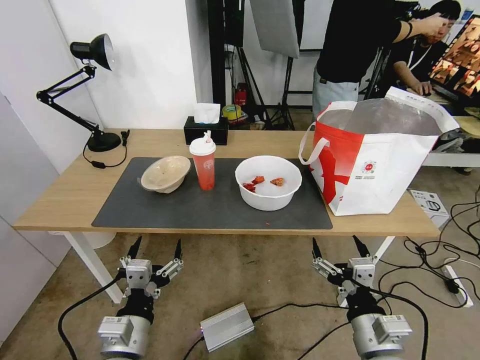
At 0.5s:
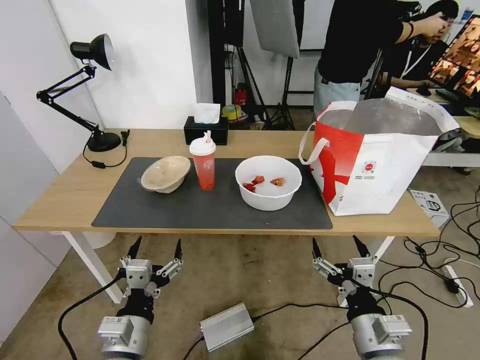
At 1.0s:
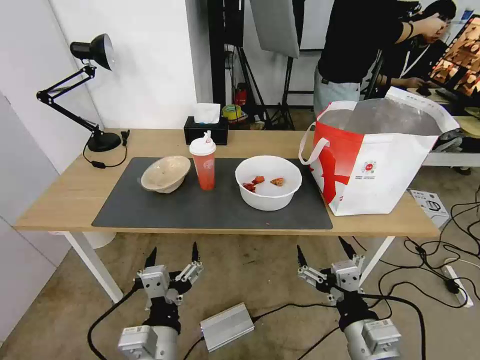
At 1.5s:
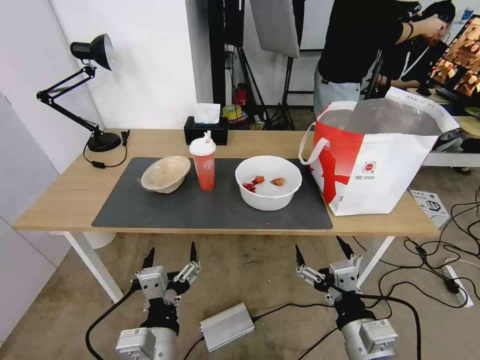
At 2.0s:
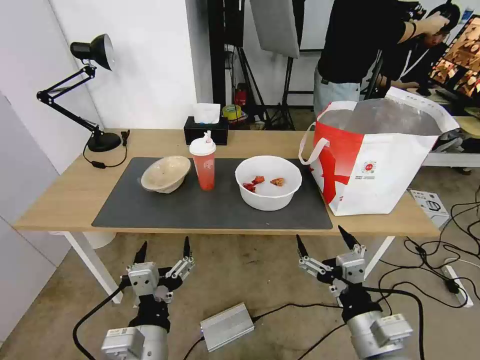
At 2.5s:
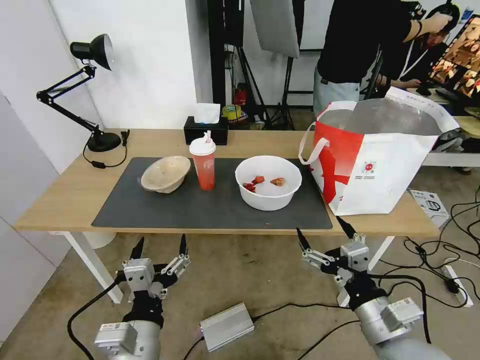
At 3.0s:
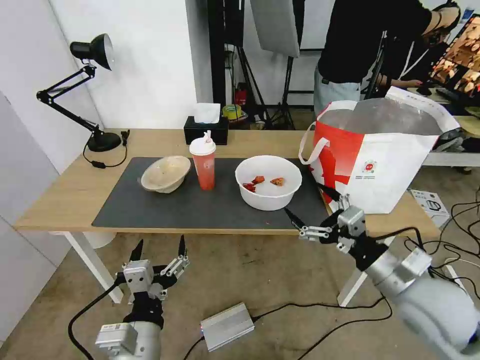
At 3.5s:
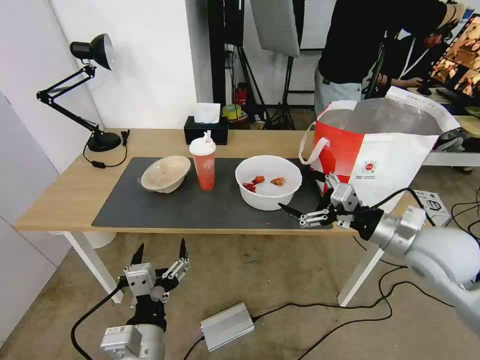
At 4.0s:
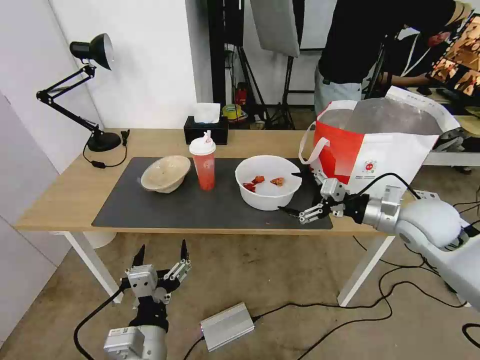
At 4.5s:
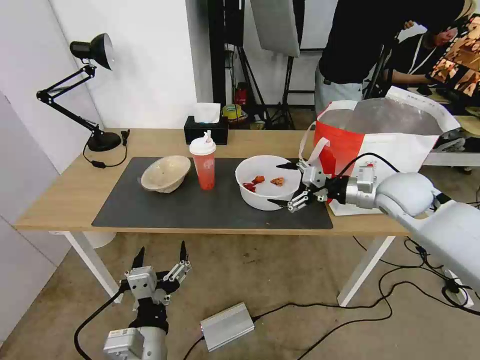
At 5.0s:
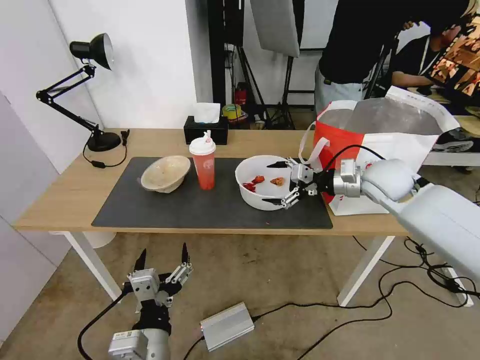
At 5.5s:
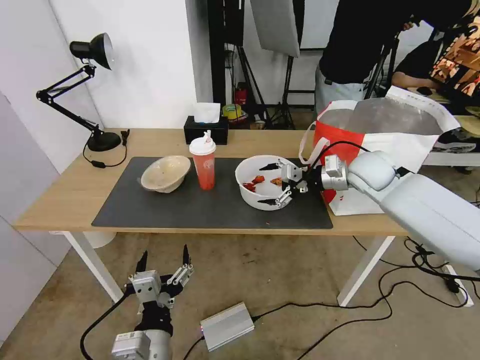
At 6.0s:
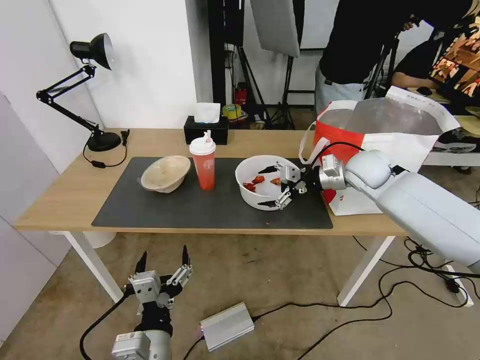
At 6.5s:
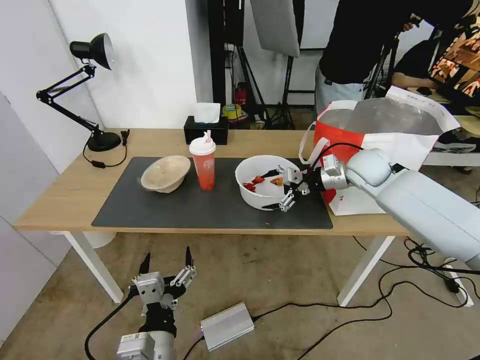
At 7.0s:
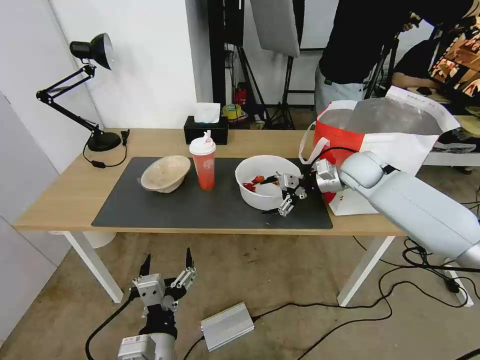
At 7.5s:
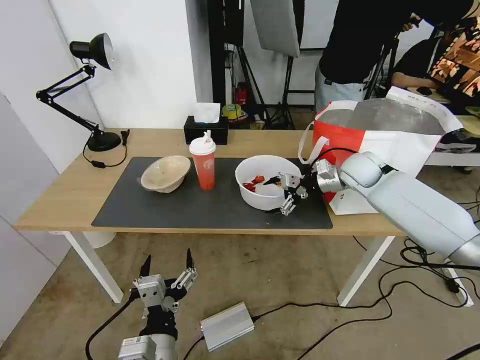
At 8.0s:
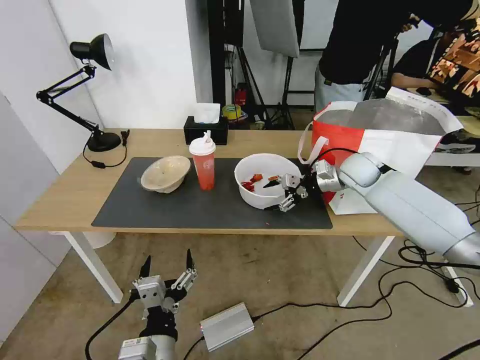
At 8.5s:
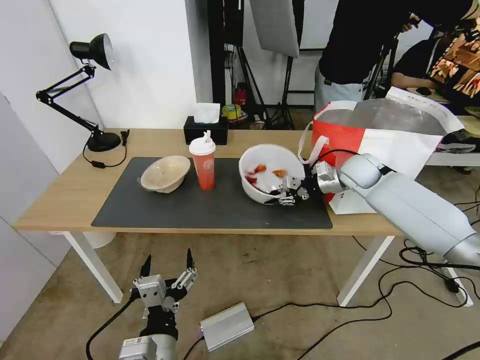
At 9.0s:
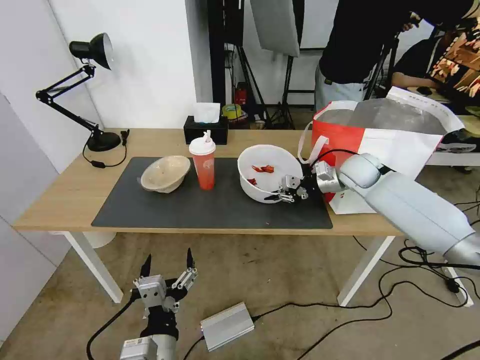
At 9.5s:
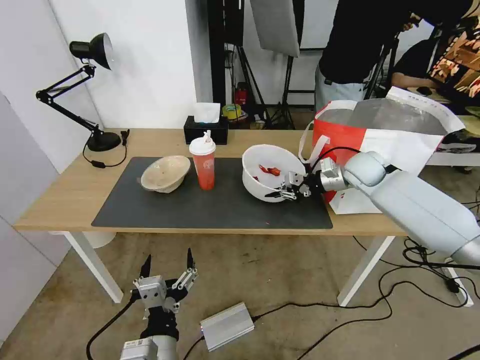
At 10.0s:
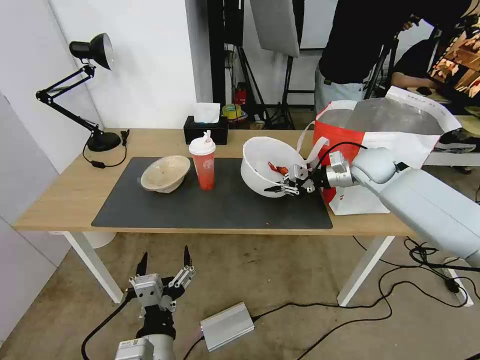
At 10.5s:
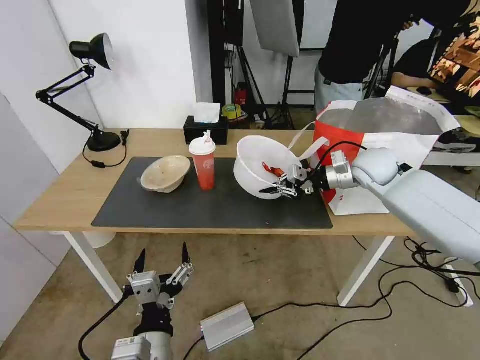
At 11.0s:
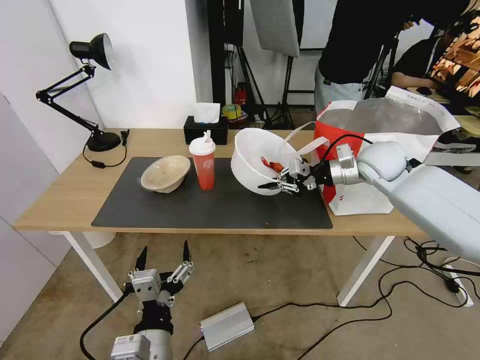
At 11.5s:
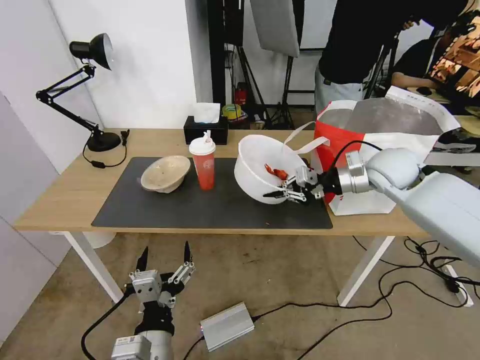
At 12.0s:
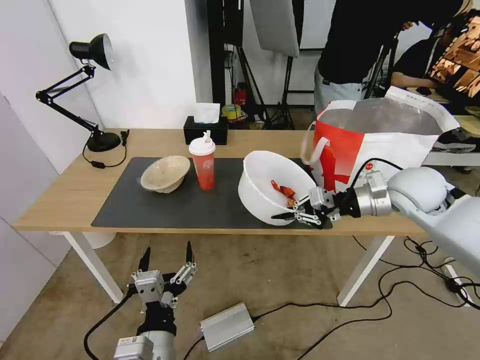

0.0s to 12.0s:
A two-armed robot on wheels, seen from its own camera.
Task of the whole recording: Pick up the trash from the table and place it into the takeout bag.
2.0s to 4.0s: The right gripper travels forward and to the right by approximately 25 cm.
4.0s to 6.0s: The right gripper heads forward, covering some 15 cm.
6.0s to 8.0s: The right gripper ends up roughly 5 cm from where it was.
8.0s to 10.0s: The right gripper closes.
10.0s to 12.0s: The right gripper travels backward by some 10 cm.

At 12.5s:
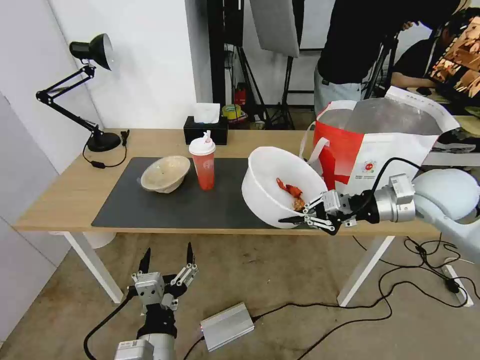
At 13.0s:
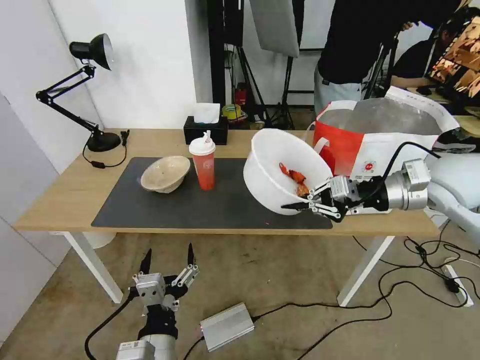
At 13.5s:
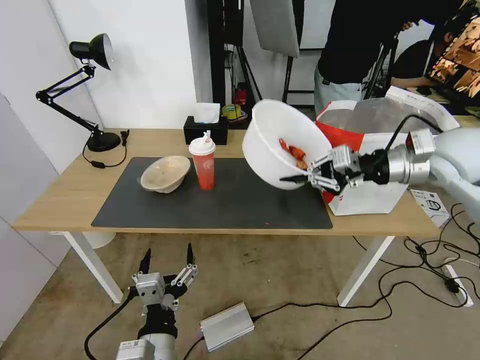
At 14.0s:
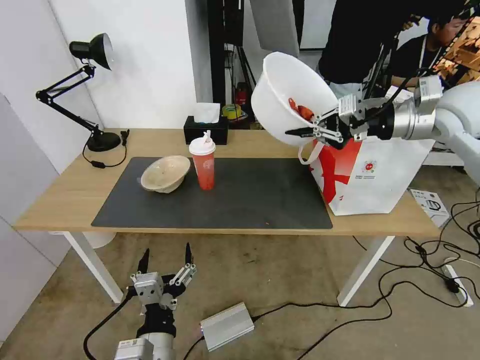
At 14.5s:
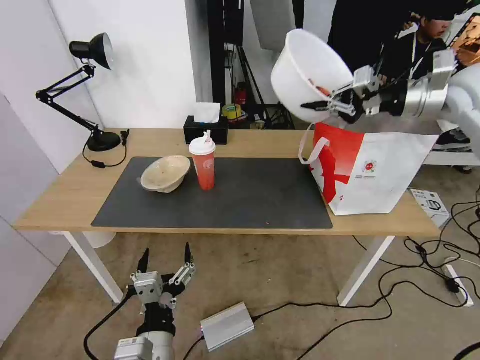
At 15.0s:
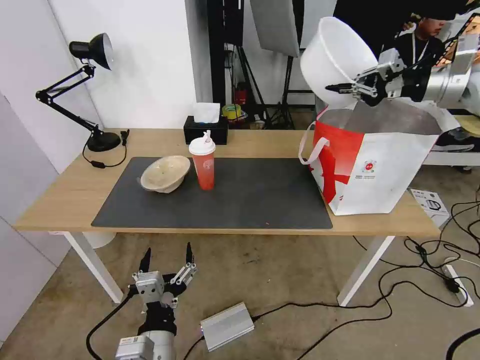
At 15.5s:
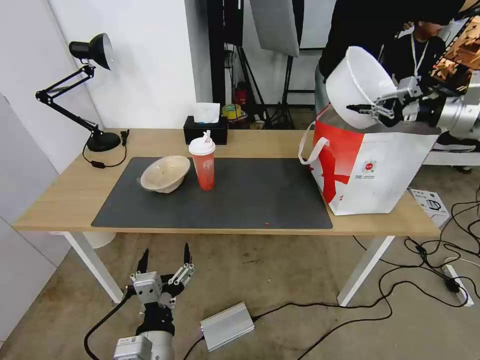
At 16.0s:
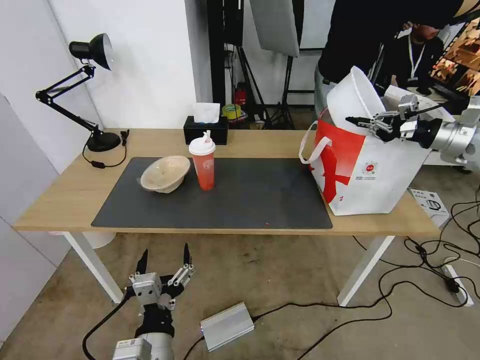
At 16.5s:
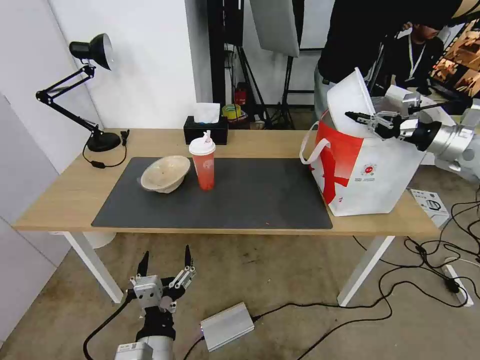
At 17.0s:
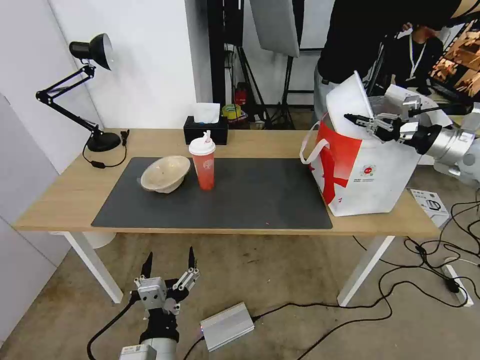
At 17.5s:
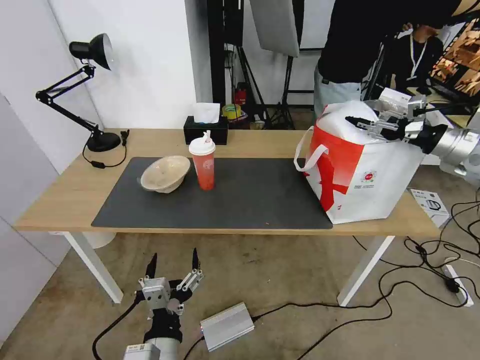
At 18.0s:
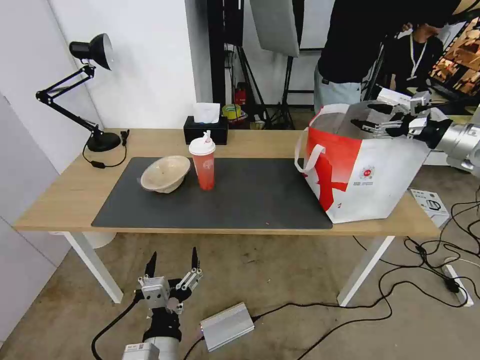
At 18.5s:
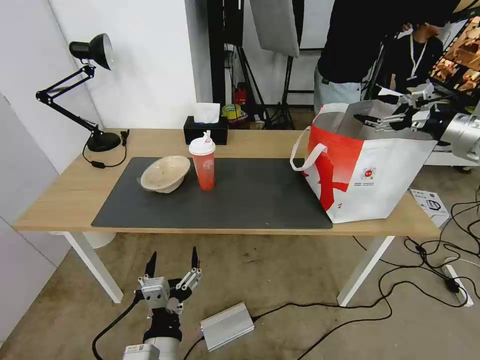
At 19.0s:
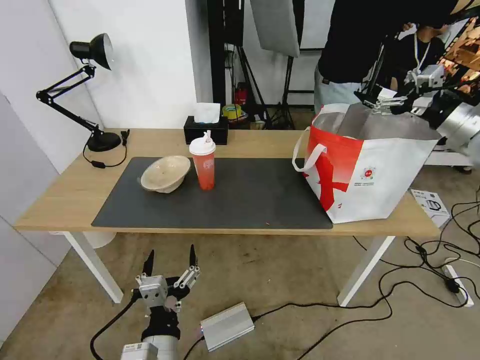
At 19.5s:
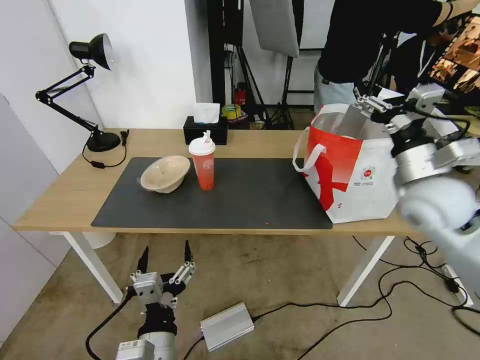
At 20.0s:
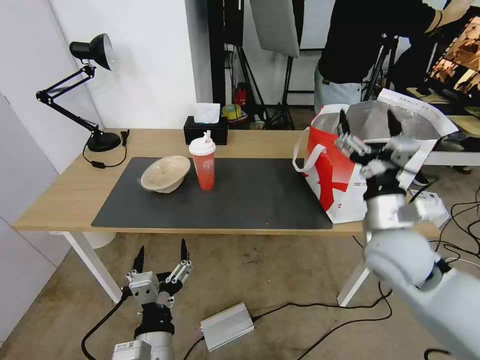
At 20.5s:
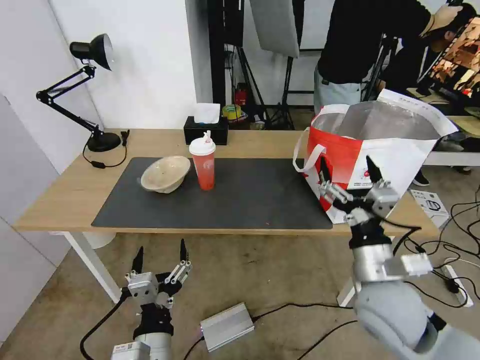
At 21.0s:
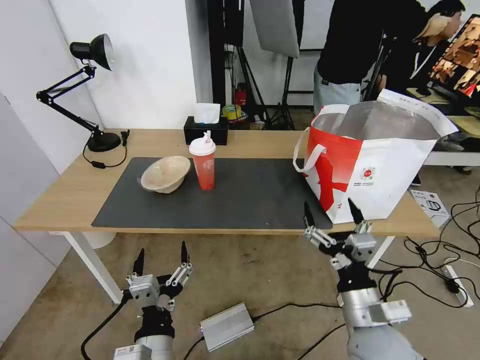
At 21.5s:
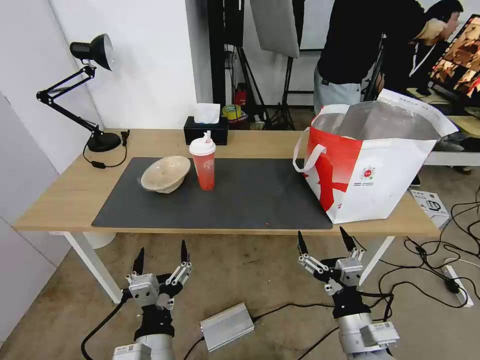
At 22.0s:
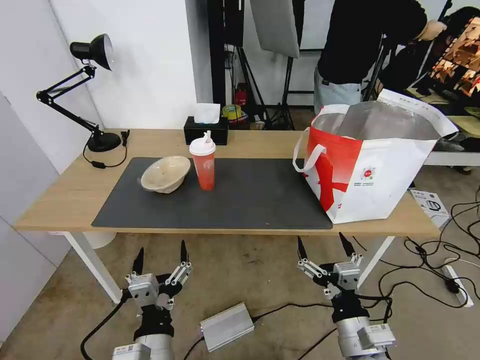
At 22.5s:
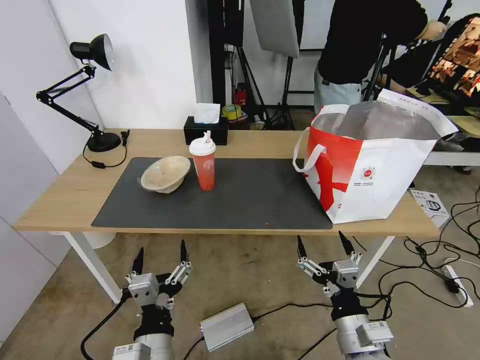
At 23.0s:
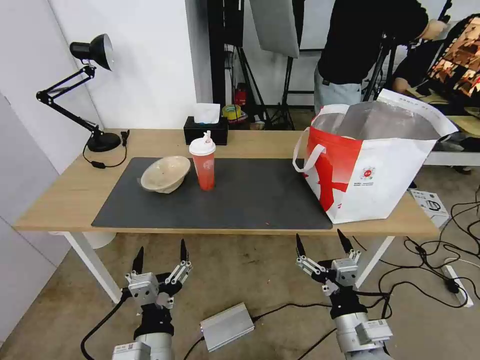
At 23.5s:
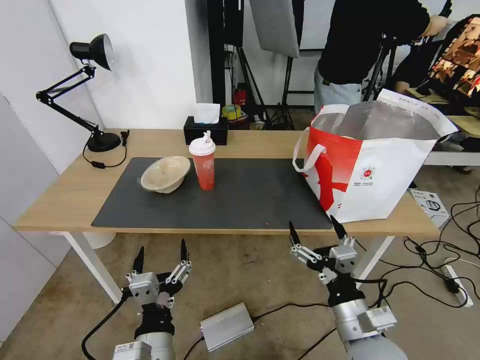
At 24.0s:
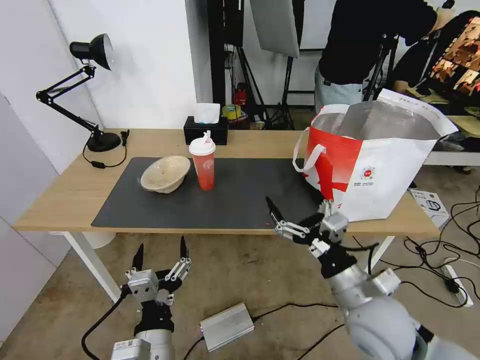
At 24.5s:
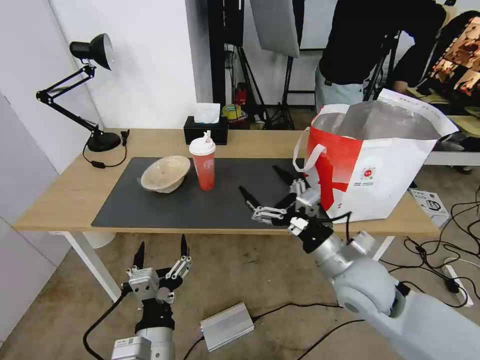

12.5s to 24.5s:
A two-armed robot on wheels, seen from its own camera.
Task of the whole recording: Pick up the trash from the table and place it into the takeout bag.
12.5s to 14.5s: The right gripper travels upward and forward by approximately 20 cm.
14.5s to 16.5s: The right gripper travels downward and to the right by roughly 15 cm.
16.5s to 18.5s: The right gripper opens up.
18.5s to 20.5s: The right gripper goes approximately 40 cm to the left, backward and downward.
20.5s to 22.5s: The right gripper is displaced downward and backward by roughly 15 cm.
22.5s to 24.5s: The right gripper travels forward and upward by approximately 15 cm.

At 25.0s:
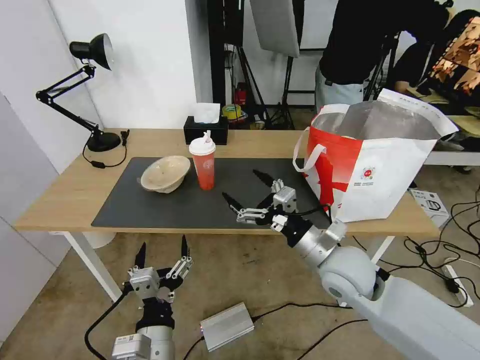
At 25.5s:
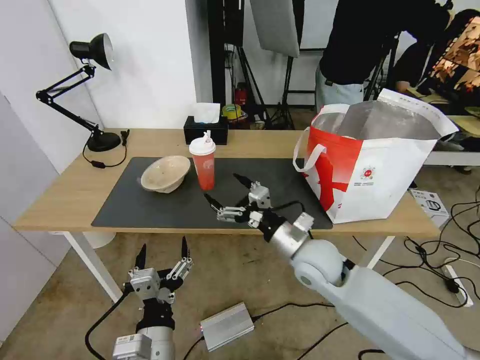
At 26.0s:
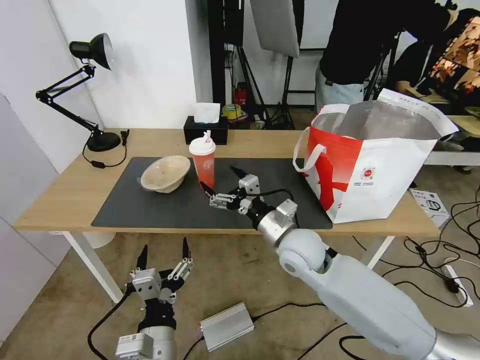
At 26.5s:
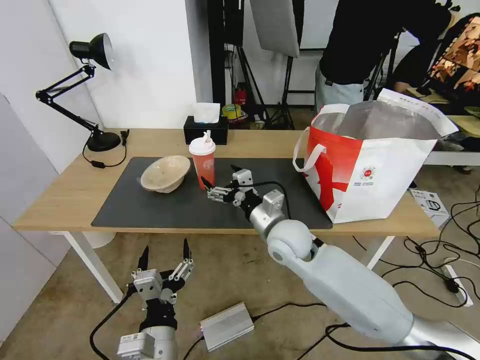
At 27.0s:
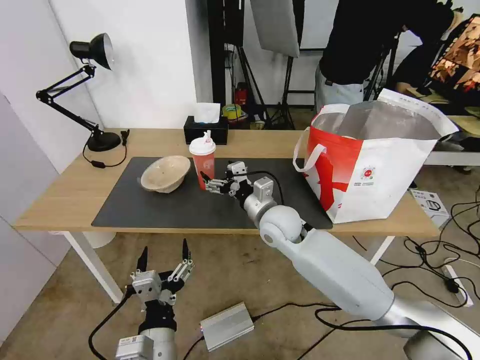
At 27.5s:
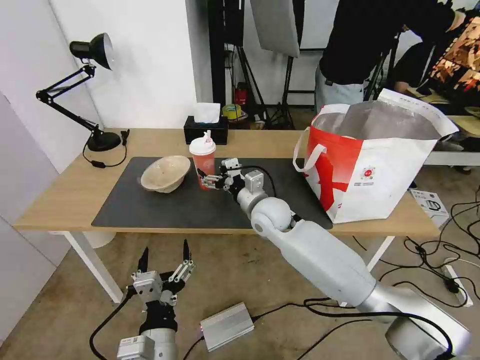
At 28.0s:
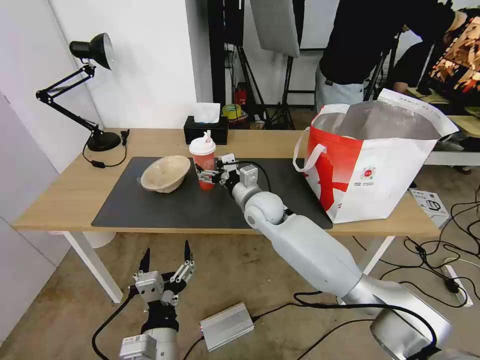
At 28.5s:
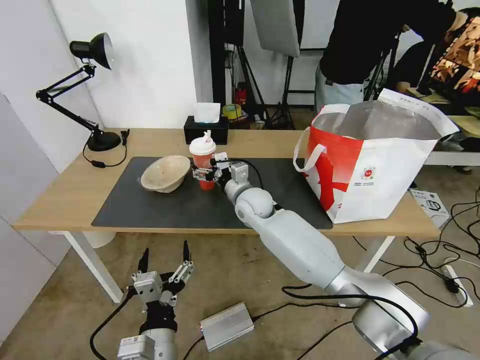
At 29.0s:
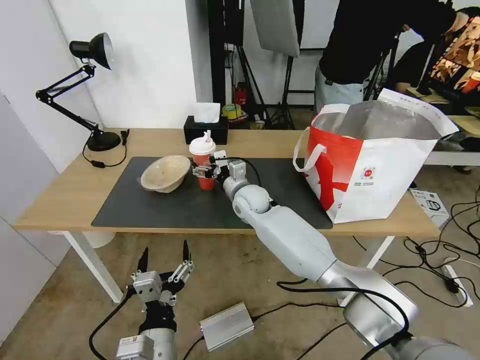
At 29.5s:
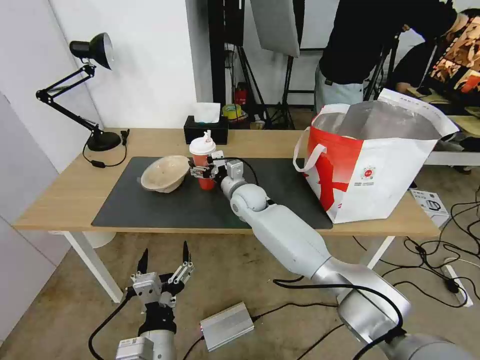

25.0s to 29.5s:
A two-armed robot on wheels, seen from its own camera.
Task of the whole recording: Pick up the trash from the table and place it into the takeout bag.
25.0s to 27.0s: The right gripper moves forward and to the left, some 15 cm.
27.0s to 29.5s: The right gripper moves forward and to the left, roughly 15 cm.
